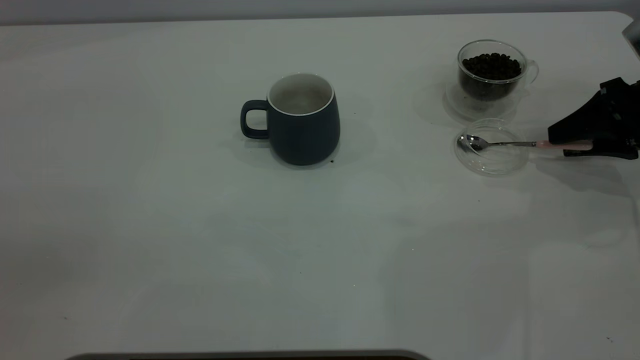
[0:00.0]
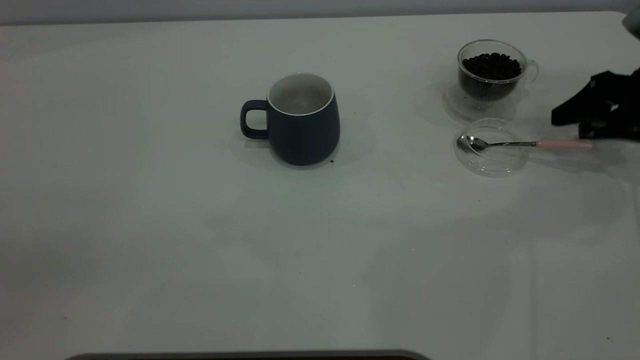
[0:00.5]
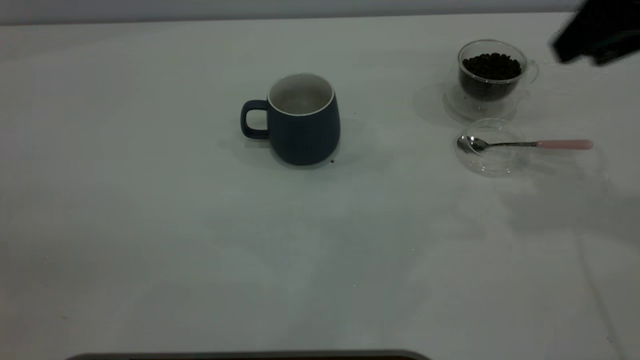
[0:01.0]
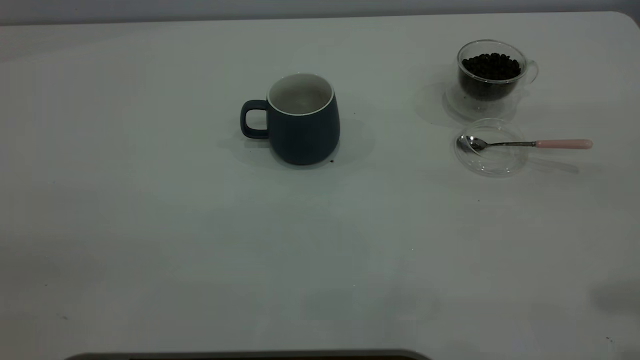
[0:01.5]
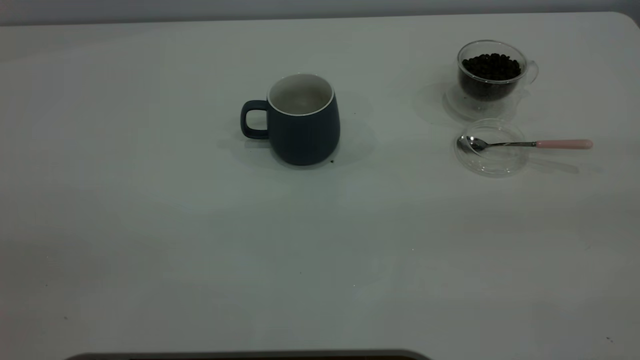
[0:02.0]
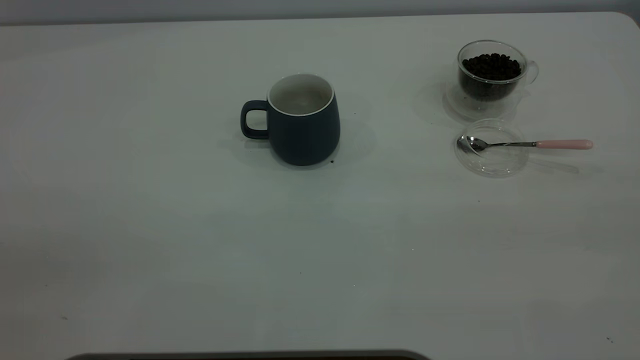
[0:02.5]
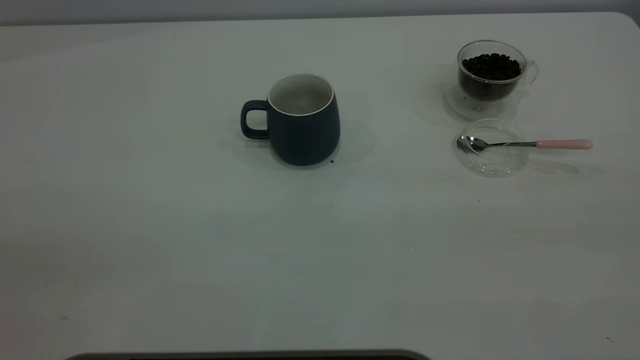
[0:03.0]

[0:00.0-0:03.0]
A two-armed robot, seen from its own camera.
Task of the whole recording: the left gripper place the grey cup in the center of the table, the right gripper take the pink spoon from the cup lid and scoop out the coffee beans from the coffee cup and put them into the grey cup, the right gripper put the spoon back into the cup lid.
0:00.0 to 0:01.5: The right gripper is displaced upward and backward by some 35 cm.
